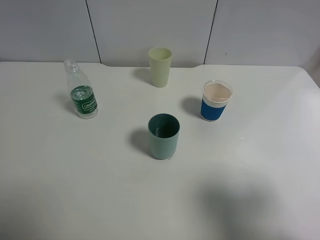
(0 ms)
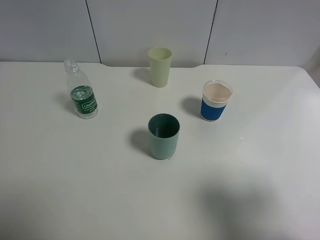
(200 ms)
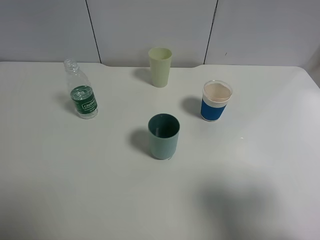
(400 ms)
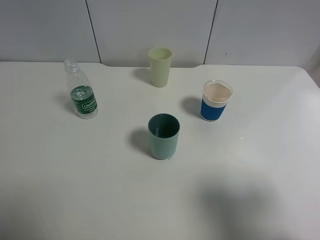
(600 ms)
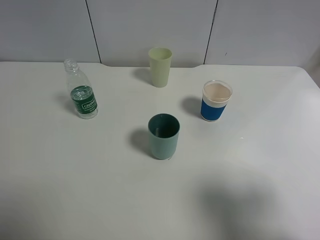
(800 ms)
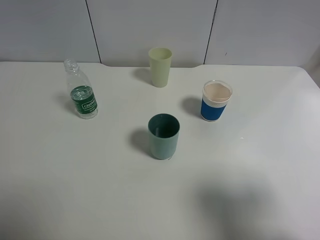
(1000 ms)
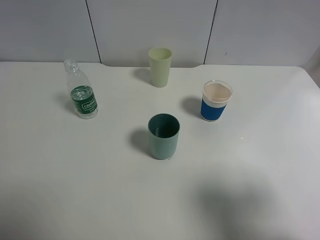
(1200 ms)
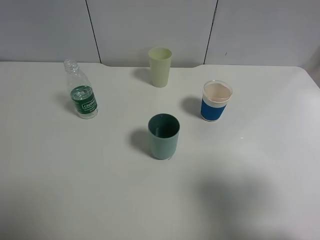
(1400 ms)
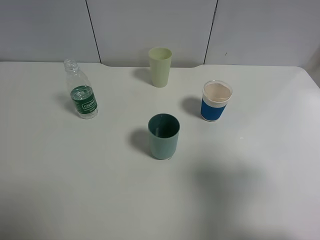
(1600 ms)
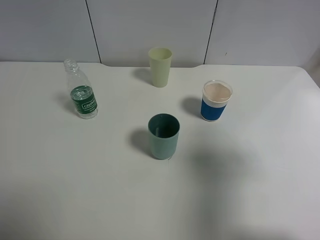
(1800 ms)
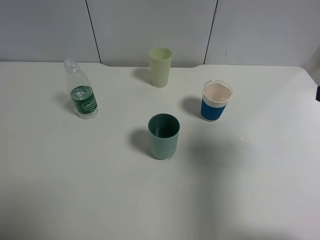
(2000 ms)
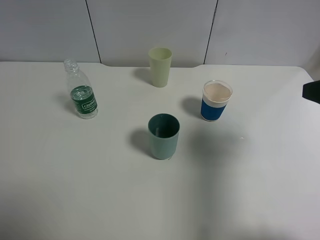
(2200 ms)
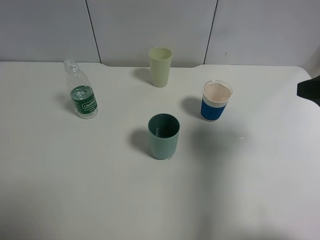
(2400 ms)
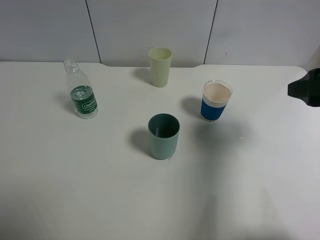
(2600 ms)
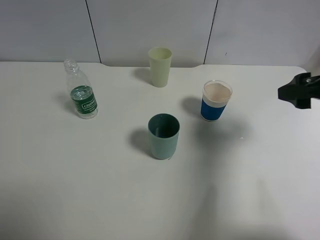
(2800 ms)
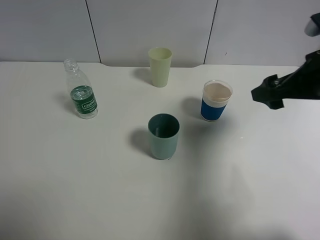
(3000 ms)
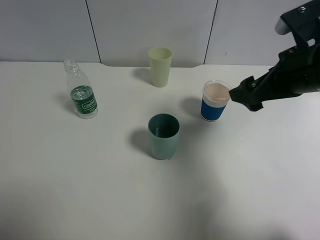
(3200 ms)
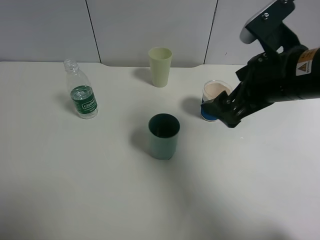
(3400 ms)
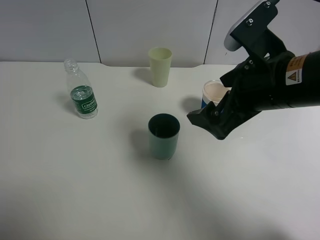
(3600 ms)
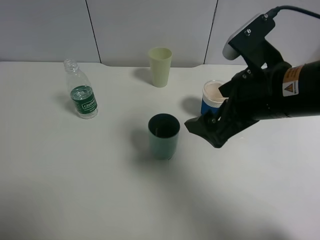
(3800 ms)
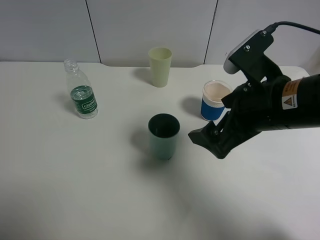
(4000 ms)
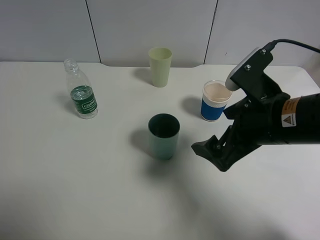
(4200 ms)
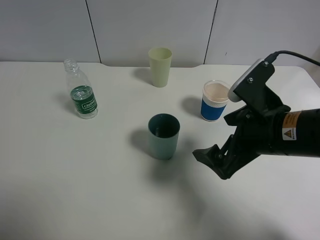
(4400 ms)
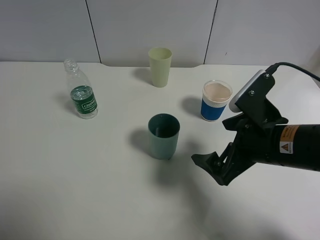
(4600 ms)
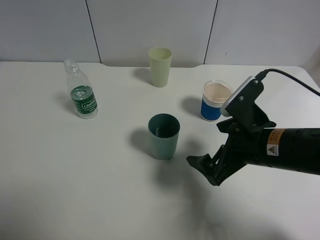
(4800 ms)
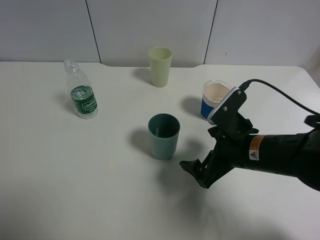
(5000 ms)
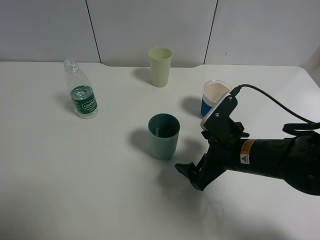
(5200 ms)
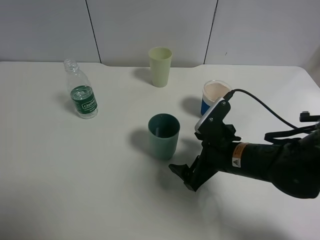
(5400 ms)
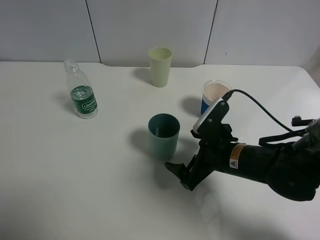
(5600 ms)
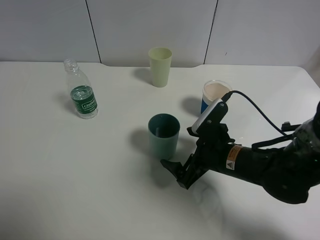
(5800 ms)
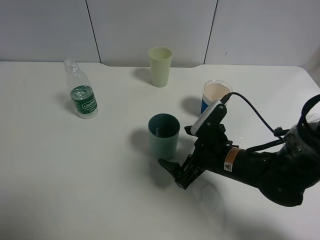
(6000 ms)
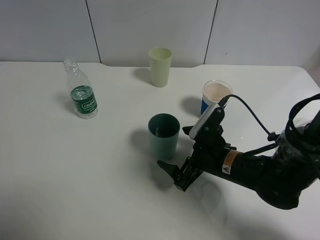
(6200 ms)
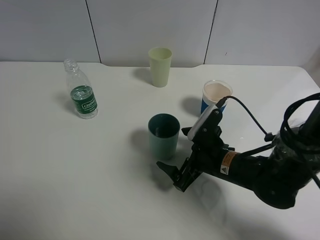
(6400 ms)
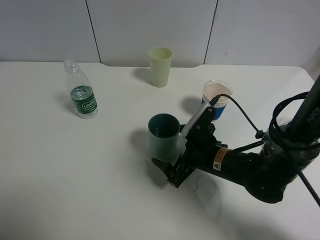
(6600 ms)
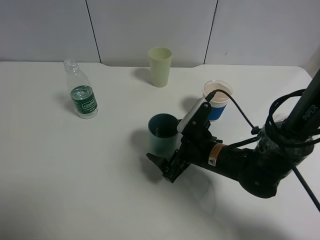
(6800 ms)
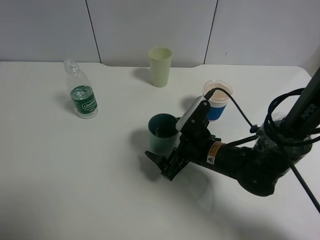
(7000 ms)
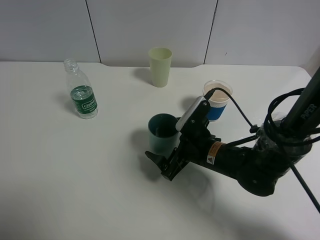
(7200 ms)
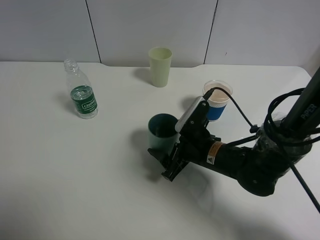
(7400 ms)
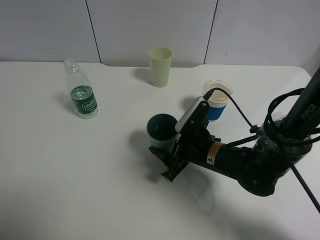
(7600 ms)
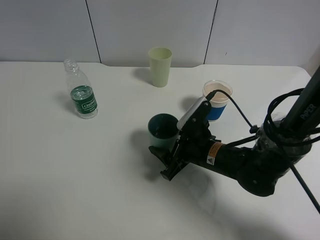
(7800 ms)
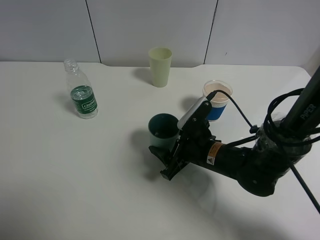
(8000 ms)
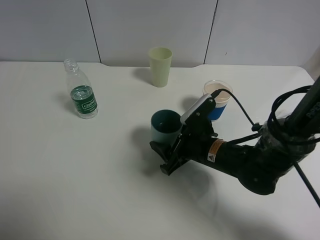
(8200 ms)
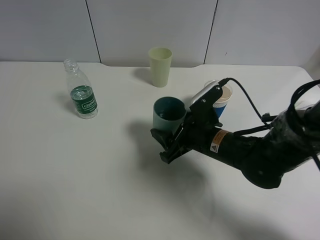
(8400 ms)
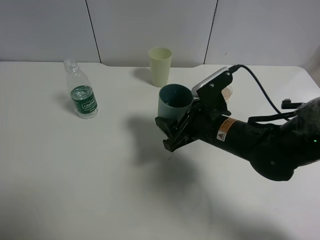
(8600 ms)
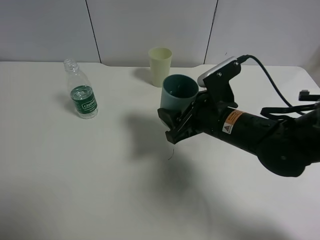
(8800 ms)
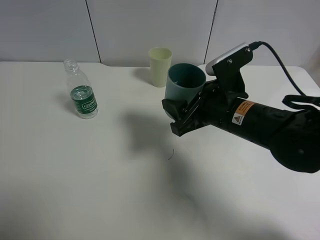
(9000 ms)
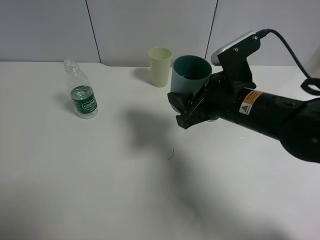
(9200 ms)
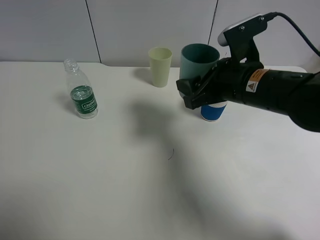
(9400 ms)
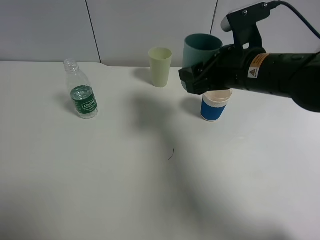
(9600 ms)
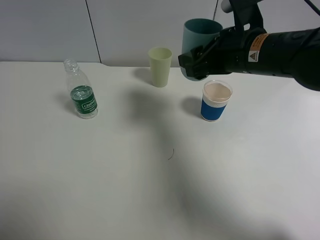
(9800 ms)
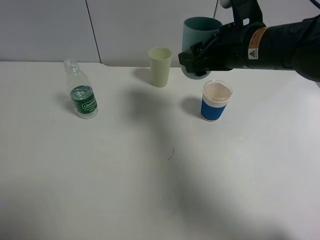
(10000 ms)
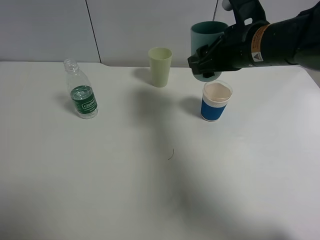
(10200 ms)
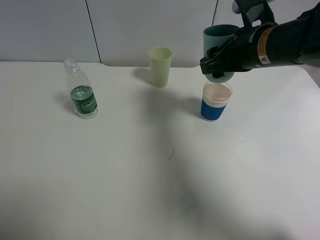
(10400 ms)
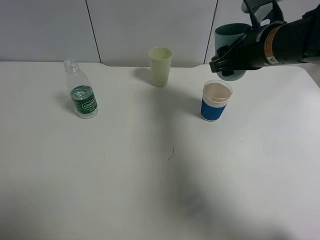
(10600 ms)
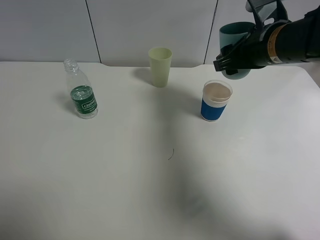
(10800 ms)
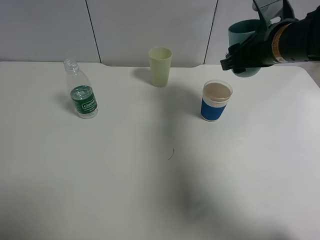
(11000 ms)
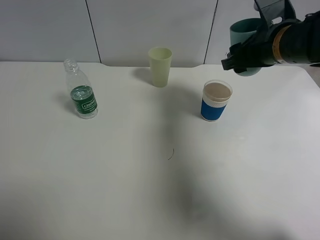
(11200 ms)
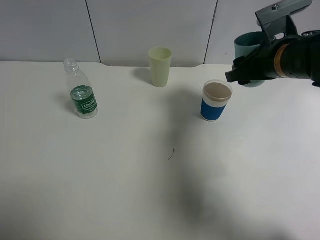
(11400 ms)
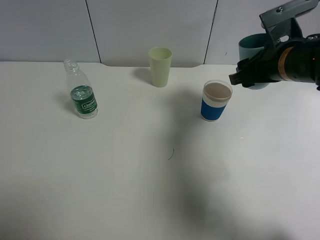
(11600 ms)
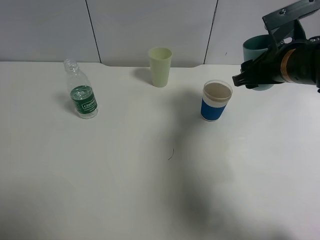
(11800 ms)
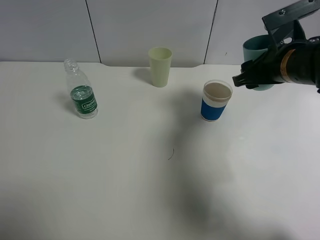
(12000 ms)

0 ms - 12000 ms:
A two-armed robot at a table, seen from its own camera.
Task of the whole recording: use a clamp to hold the bottle of the drink, pour the beverage into a random cup, then clamp the cup containing the drink and pour the drink into another random cup.
Step, 0 ms - 8200 ms: Pick up the blue plastic cup bottle with right gripper.
0 ms - 1600 ms: The grippers move only a little.
1600 ms - 3000 ms: The right gripper shifts approximately 15 cm forward.
3000 ms - 4400 ms: The right gripper travels to the left by roughly 10 cm.
4400 ms - 6000 ms: The right gripper goes about 15 cm downward.
6000 ms - 7600 ms: The right gripper closes.
7600 ms - 9000 ms: The right gripper is displaced upward by approximately 10 cm.
9000 ms - 10400 ms: The right gripper travels upward and forward by about 10 cm.
10400 ms - 12000 ms: The right gripper moves to the right, some 5 cm.

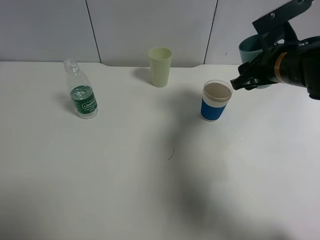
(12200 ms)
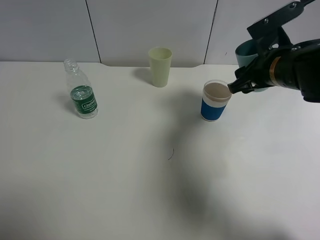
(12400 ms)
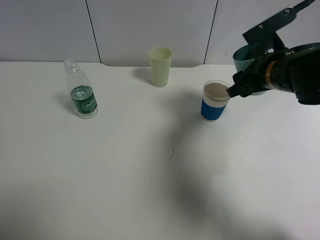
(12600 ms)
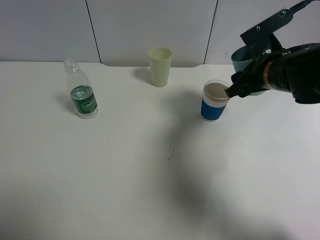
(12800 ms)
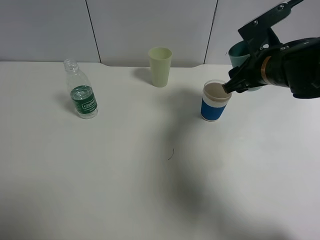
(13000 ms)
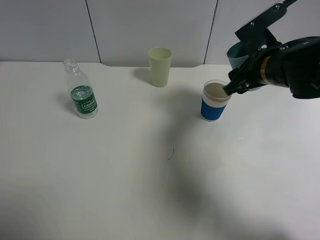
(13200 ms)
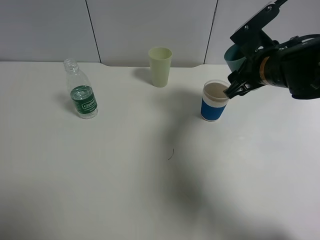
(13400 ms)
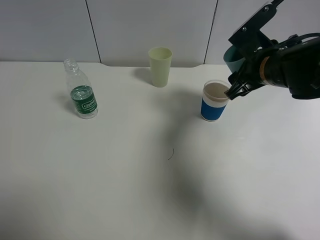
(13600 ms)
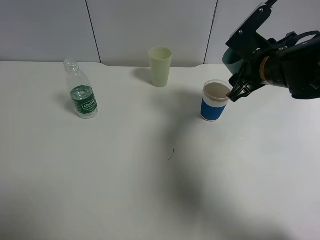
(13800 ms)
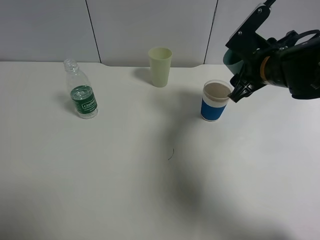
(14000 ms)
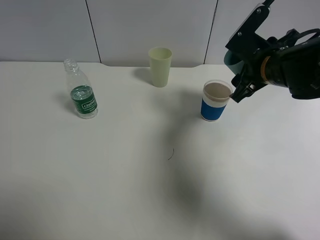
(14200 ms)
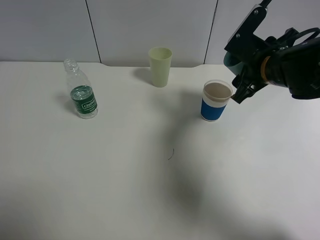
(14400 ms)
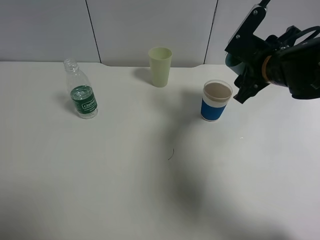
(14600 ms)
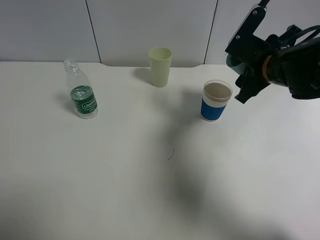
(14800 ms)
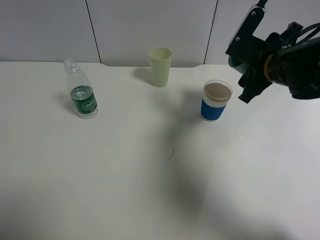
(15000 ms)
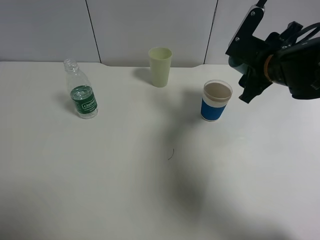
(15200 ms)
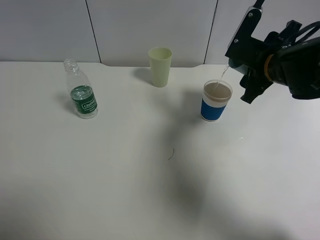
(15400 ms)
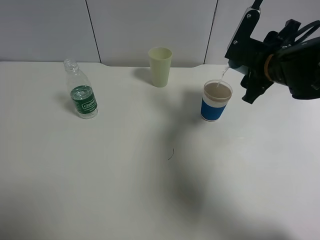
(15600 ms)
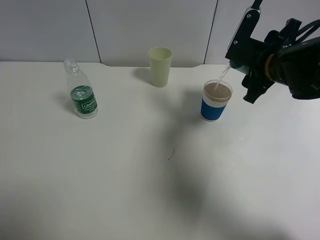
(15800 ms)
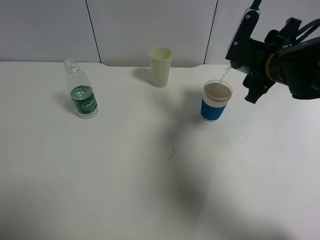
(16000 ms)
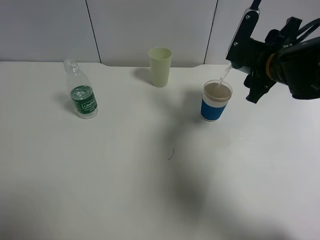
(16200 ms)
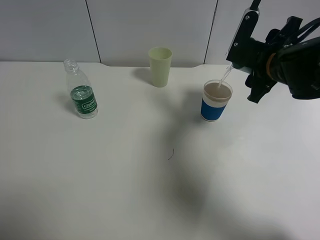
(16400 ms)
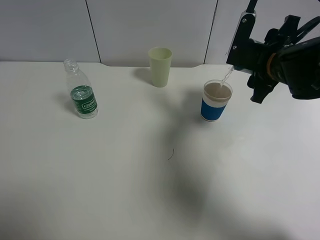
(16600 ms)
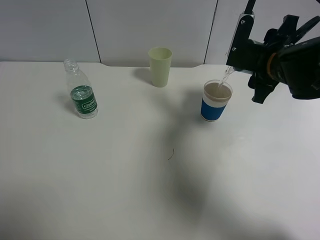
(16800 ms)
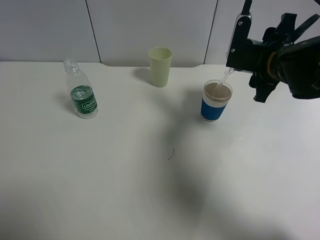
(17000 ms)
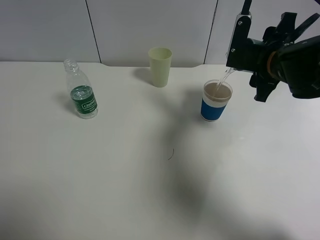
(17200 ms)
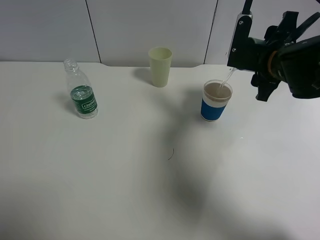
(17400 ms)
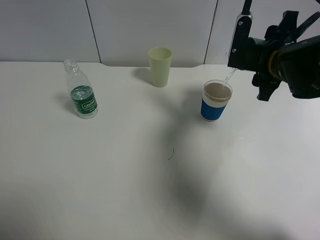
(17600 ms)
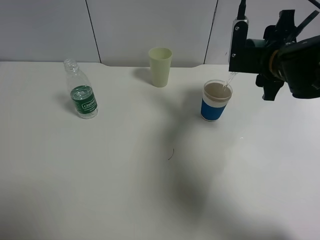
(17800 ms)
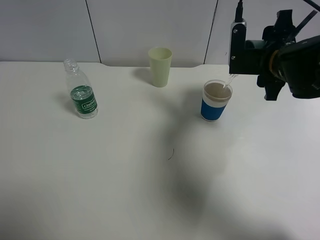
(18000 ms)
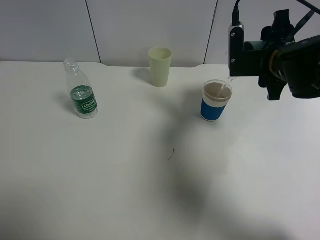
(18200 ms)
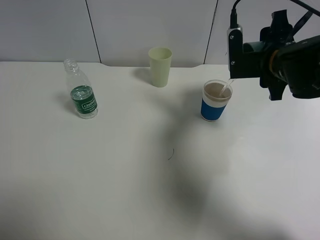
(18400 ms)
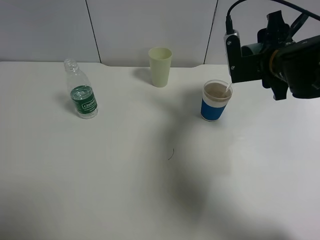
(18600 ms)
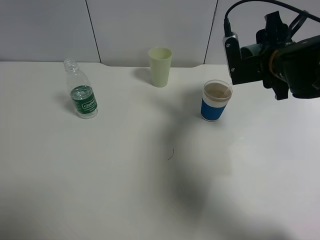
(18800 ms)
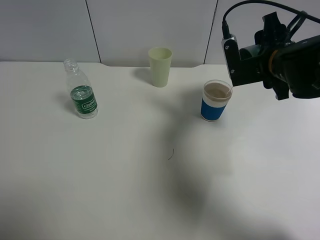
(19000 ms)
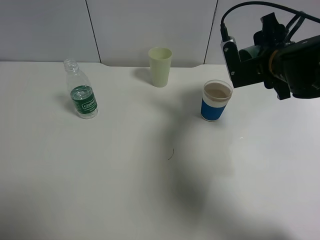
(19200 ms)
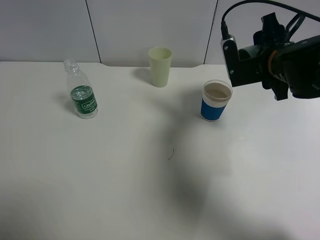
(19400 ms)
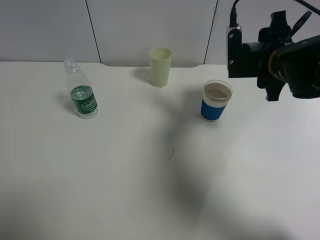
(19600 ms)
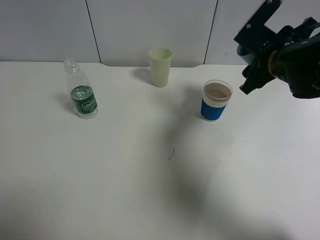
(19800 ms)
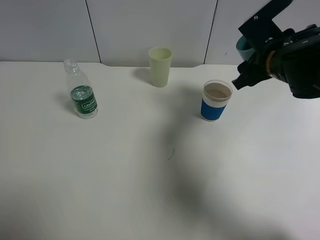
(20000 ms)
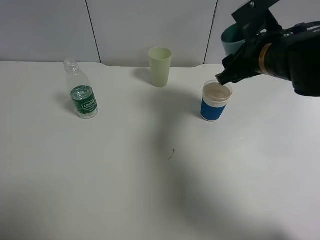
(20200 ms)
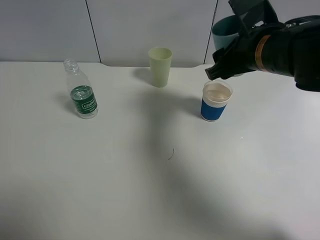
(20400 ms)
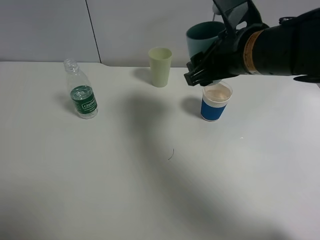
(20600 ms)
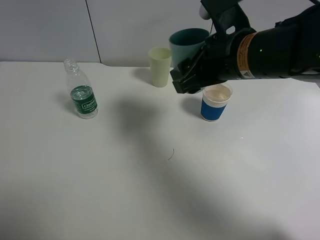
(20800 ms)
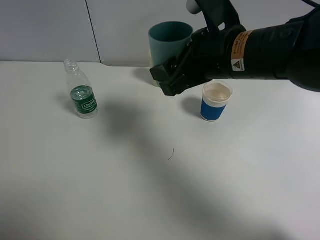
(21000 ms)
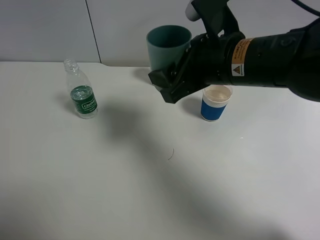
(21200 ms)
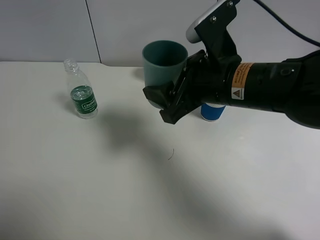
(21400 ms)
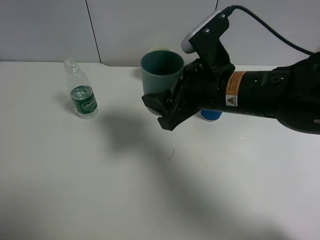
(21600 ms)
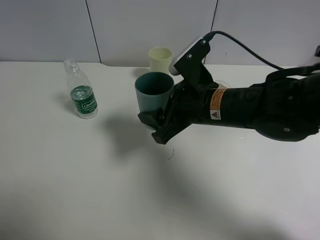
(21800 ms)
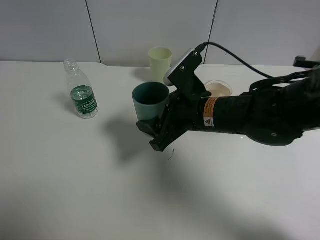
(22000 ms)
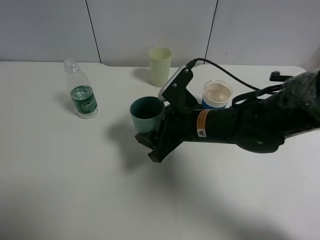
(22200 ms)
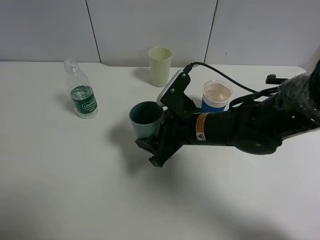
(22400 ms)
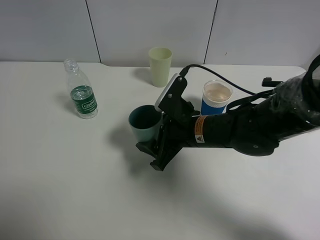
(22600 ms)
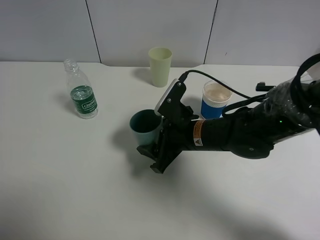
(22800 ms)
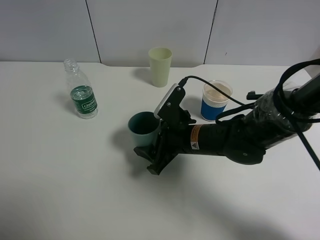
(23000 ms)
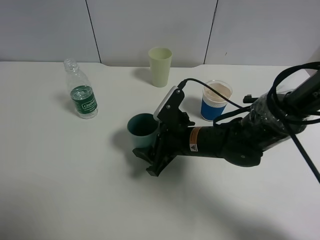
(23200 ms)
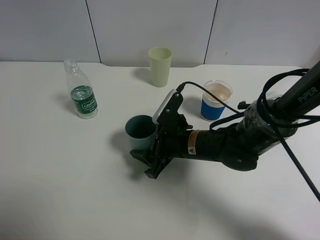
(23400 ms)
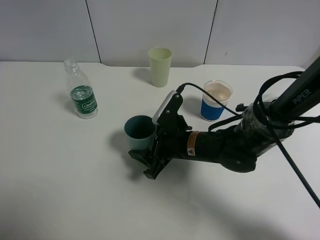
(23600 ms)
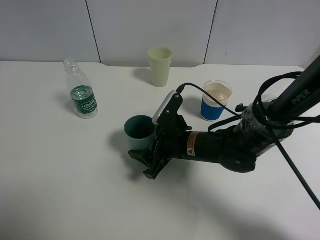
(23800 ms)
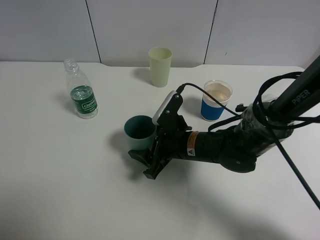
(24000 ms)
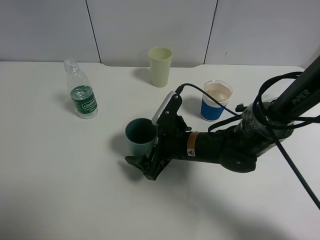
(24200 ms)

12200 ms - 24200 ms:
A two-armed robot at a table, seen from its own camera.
Task of the whole recording: use a clamp to hold the bottle of the drink, pour the beverage into a random cup, then clamp the cup containing the drink and pour the drink into another random cup.
Step, 12200 ms - 19600 ms: Pour water into the paper cup with right gripper.
13800 ms - 15200 ms: The grippers make only small movements.
15200 ms - 16600 ms: The grippers stay close to where they were, moving slightly.
16600 ms - 18200 ms: There are only small adjustments of the grippers.
19800 ms - 21200 ms: The right gripper heads to the left and backward, covering approximately 15 cm.
21200 ms - 22600 ms: The right gripper goes some 15 cm downward.
22600 ms - 24200 ms: The right gripper heads downward, covering about 5 cm, and opens its fingers.
